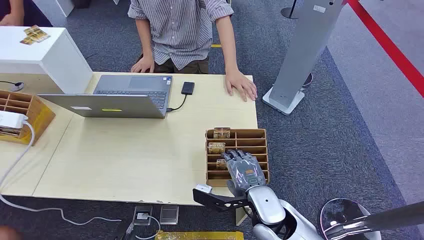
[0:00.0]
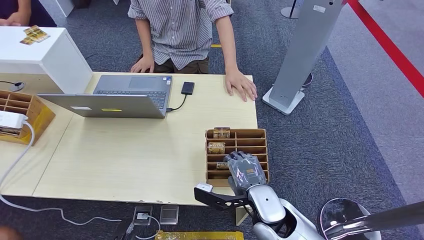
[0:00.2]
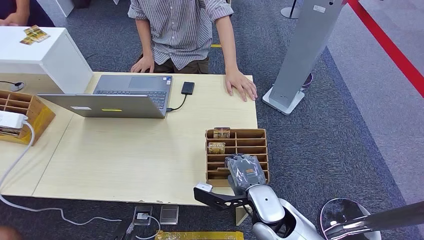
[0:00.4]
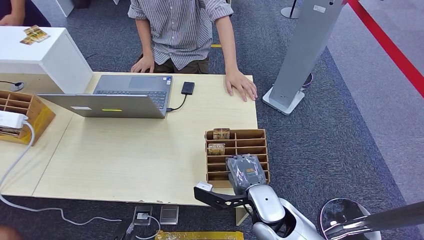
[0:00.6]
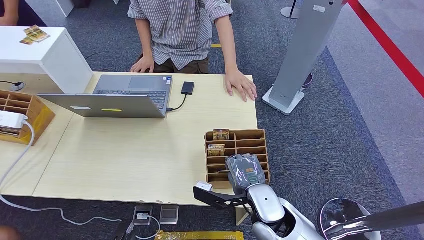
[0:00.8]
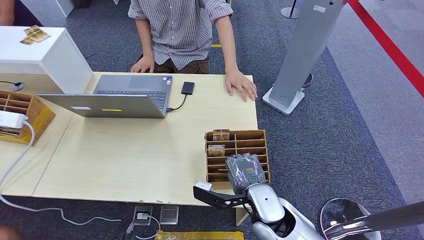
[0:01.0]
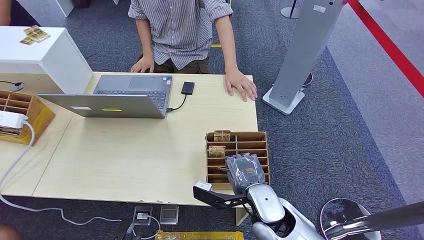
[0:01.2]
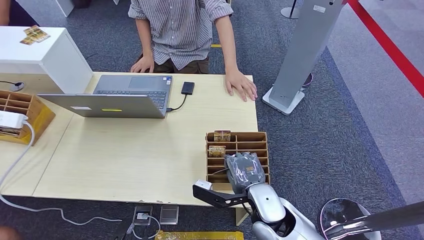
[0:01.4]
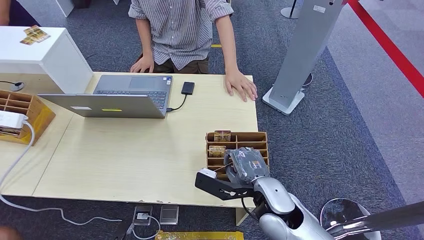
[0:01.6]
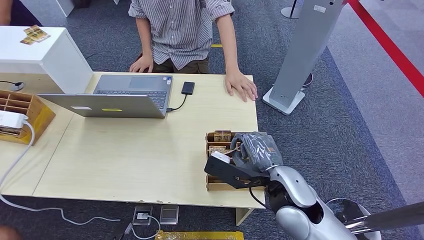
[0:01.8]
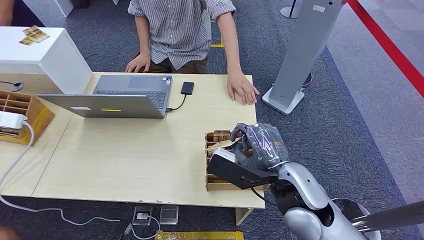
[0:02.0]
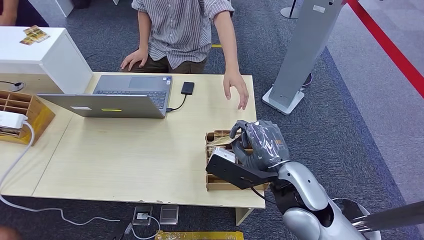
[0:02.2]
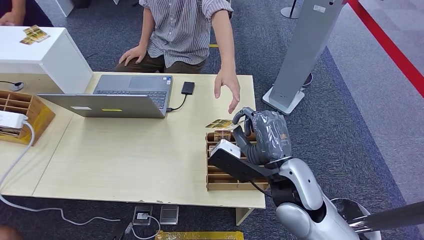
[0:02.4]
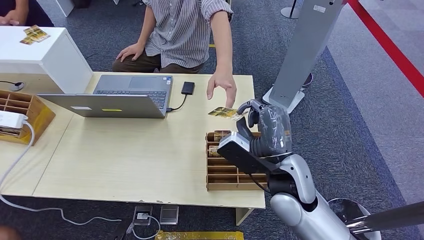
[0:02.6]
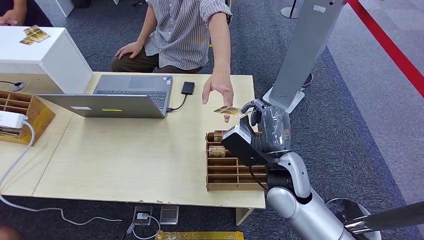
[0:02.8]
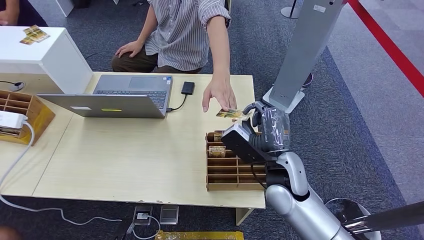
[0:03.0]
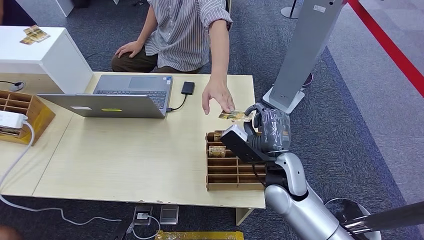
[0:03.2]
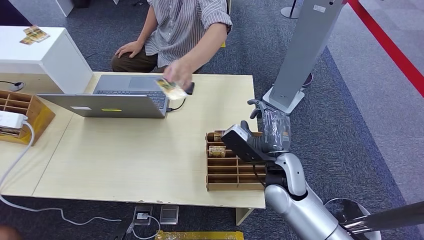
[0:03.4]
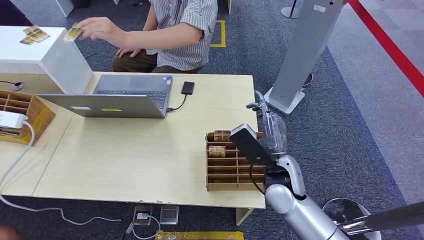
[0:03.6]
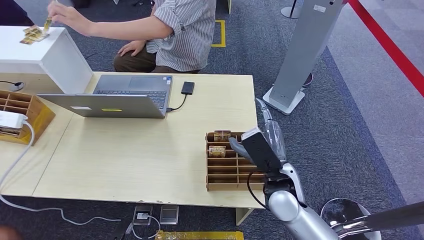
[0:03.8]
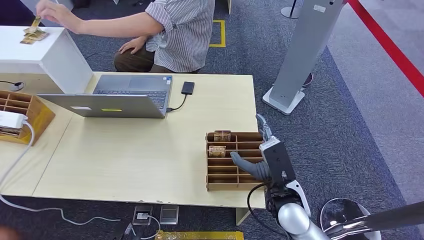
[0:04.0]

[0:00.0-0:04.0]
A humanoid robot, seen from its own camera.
Task of the whole recording: Pick up the card and hand it over to the target person.
Step, 0:00.0 to 0:01.8: Pick up the key card from the card box.
Step, 0:02.8 to 0:03.8: Hand the key card to the target.
0:01.4 to 0:02.6: The right hand travels forward by some 5 cm, and reaches roughly 10 cm upward, then returns.
0:02.6 to 0:04.0: The right hand moves backward, to the right and downward, about 10 cm.
